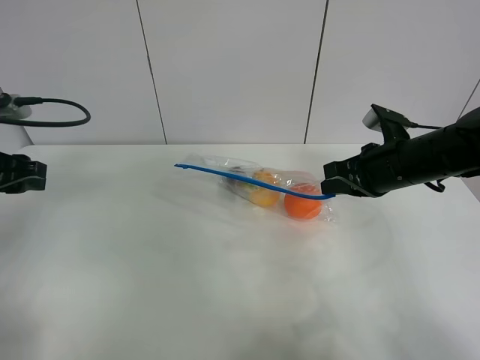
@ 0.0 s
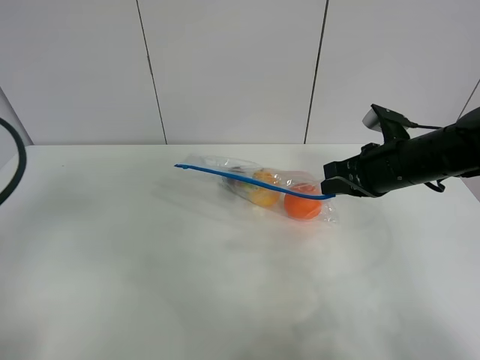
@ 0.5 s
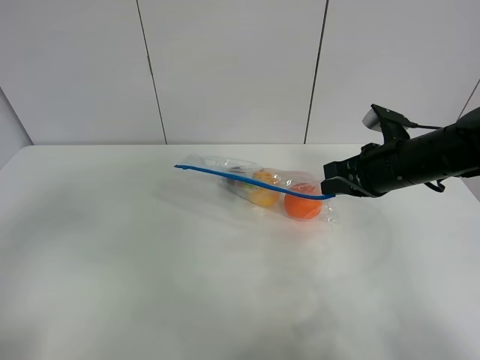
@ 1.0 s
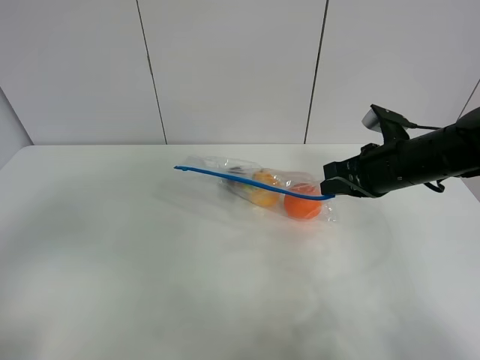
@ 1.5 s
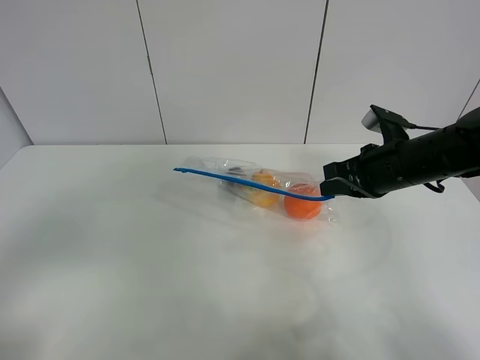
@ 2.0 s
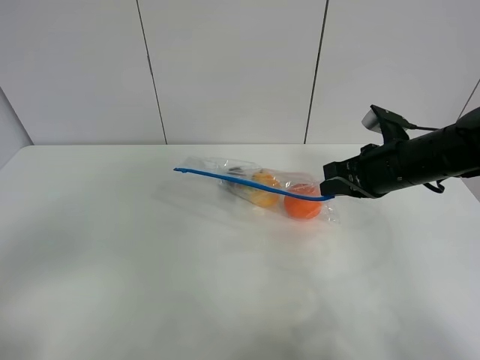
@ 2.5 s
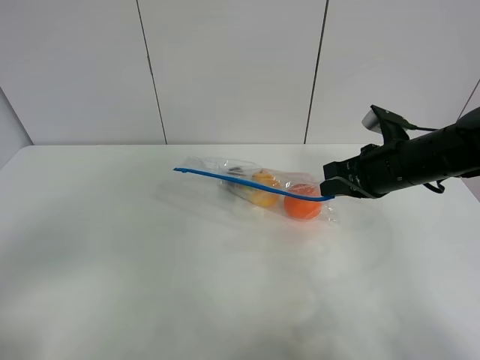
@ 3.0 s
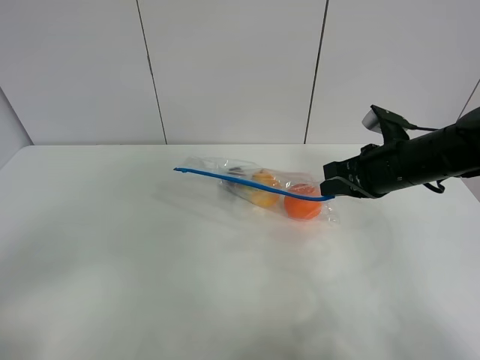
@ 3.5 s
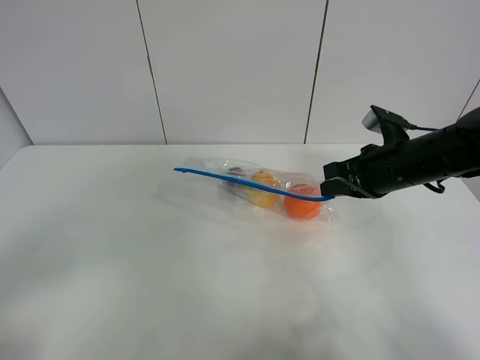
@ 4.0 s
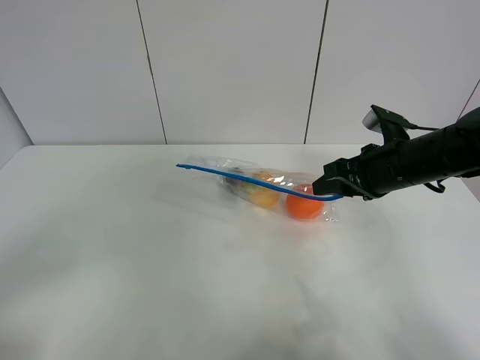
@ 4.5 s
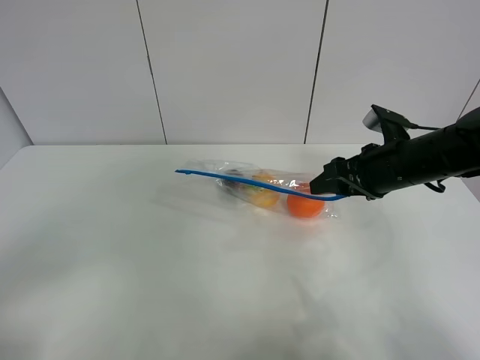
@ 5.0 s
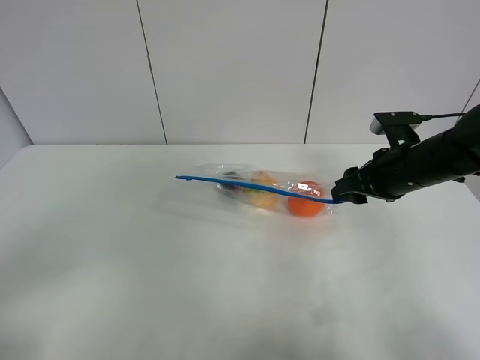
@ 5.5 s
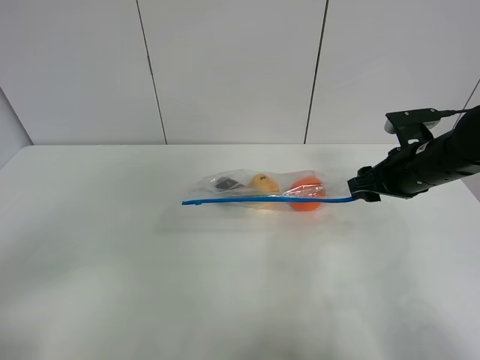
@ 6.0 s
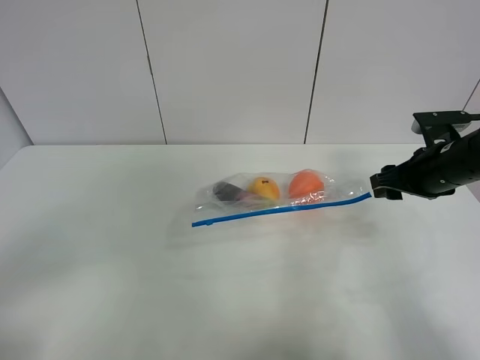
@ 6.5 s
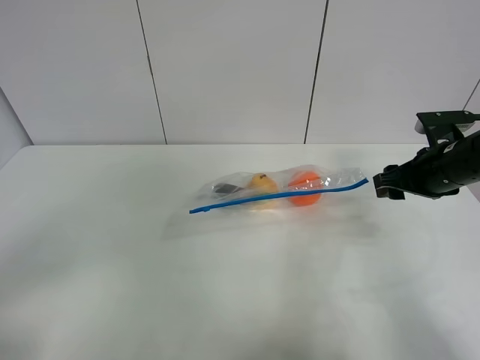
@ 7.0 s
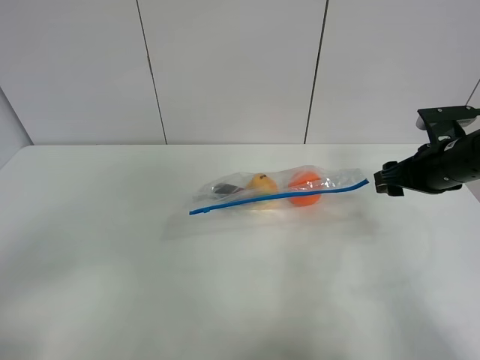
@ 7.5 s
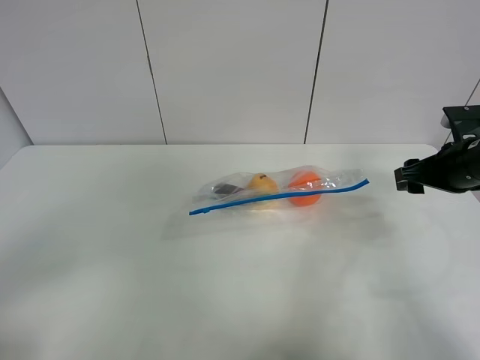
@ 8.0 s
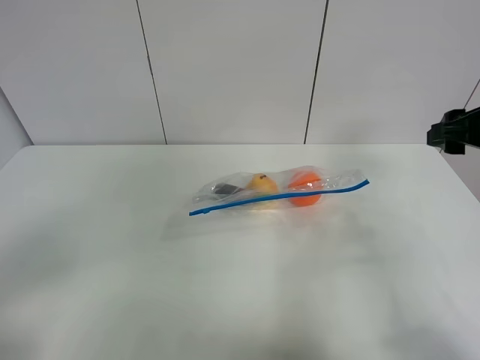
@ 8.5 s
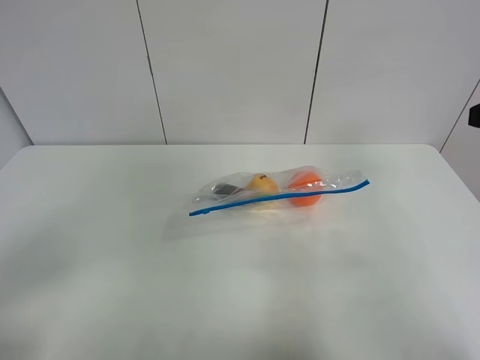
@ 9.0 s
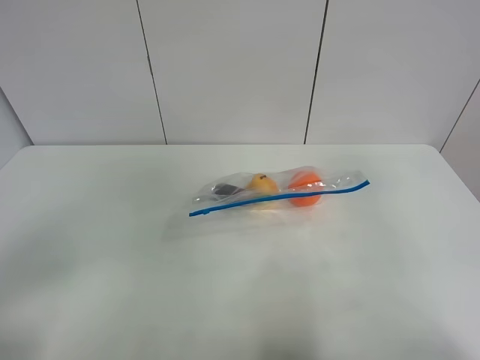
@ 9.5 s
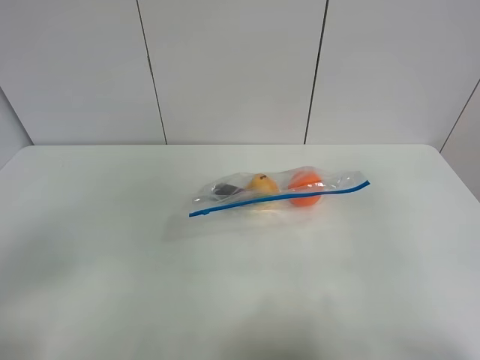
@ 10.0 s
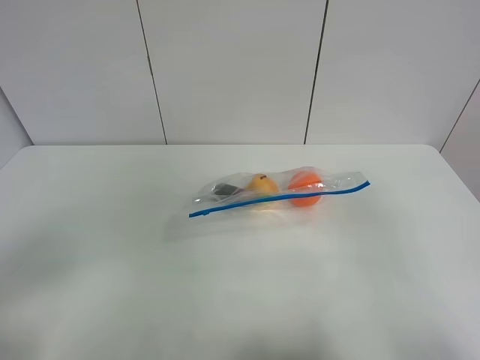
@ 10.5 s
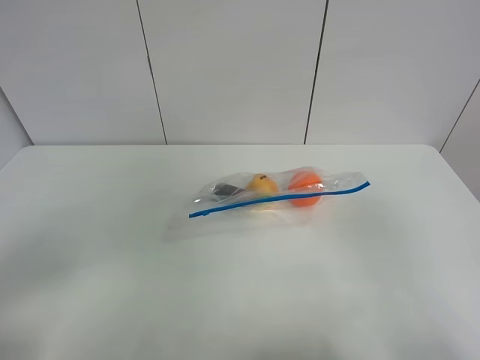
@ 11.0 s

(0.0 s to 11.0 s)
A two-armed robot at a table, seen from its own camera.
0.0 s - 2.0 s: The left gripper is displaced backward by roughly 25 cm.
3.5 s - 5.5 s: The right gripper opens up.
5.5 s - 7.5 s: The right gripper heads to the right, covering roughly 5 cm.
7.5 s - 9.0 s: The right gripper goes roughly 20 cm upward and backward.
9.0 s - 11.0 s: The right gripper travels backward by roughly 20 cm.

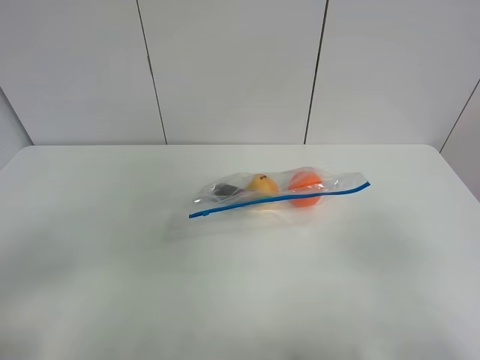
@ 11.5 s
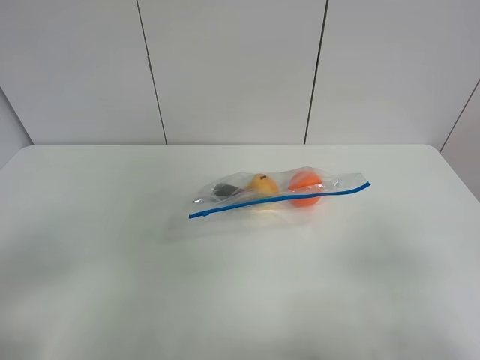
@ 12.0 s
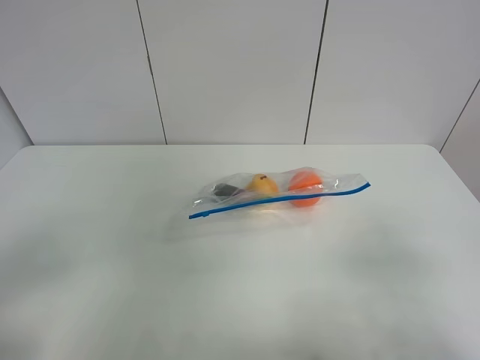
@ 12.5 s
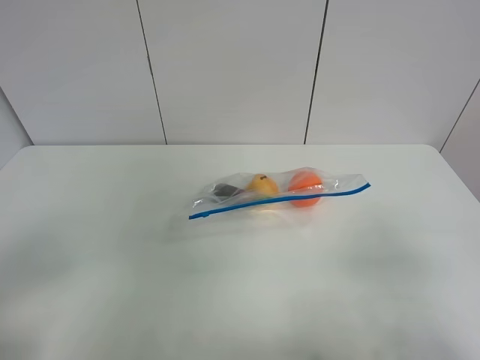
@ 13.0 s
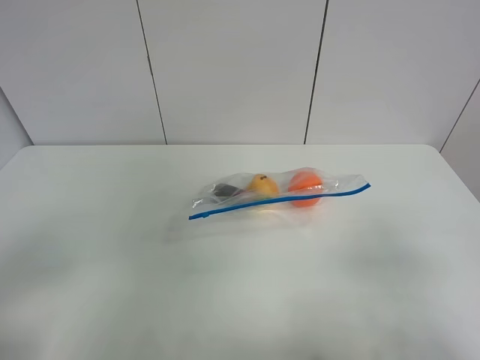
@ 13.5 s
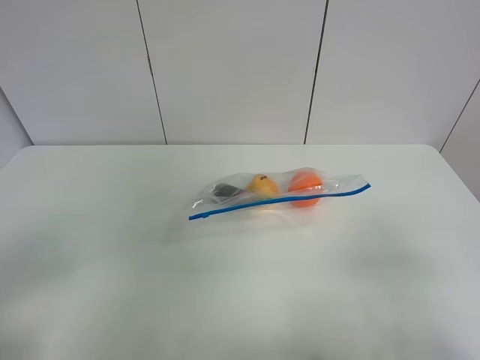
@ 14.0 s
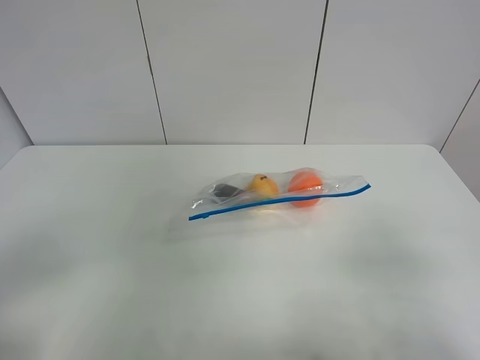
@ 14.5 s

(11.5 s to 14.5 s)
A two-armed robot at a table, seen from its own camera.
13.0 s - 14.5 s: Both grippers stay put.

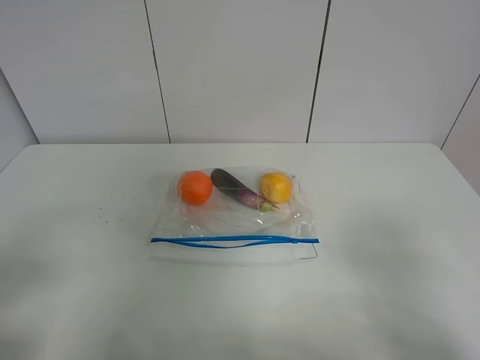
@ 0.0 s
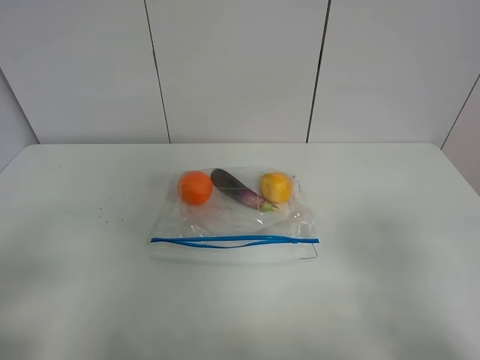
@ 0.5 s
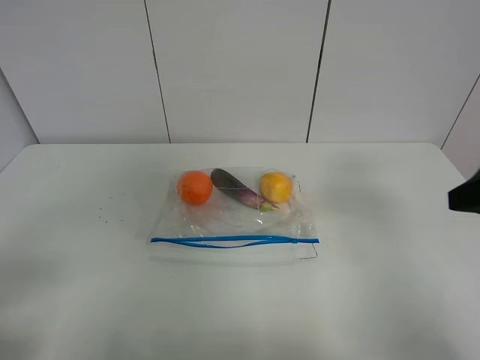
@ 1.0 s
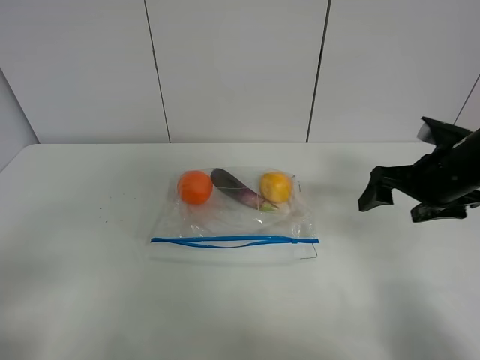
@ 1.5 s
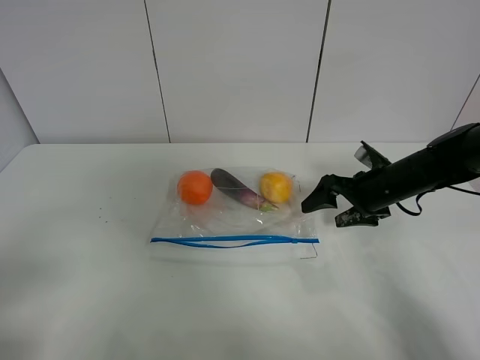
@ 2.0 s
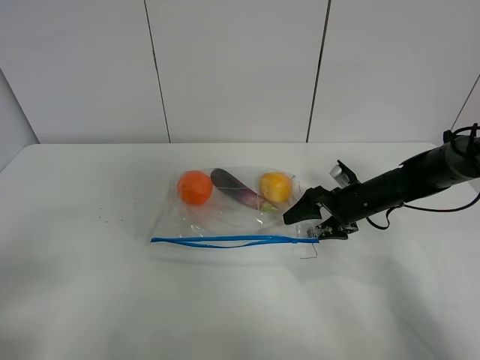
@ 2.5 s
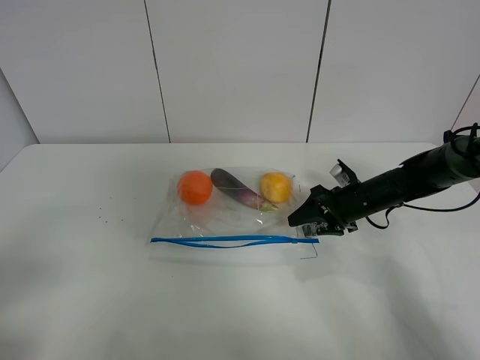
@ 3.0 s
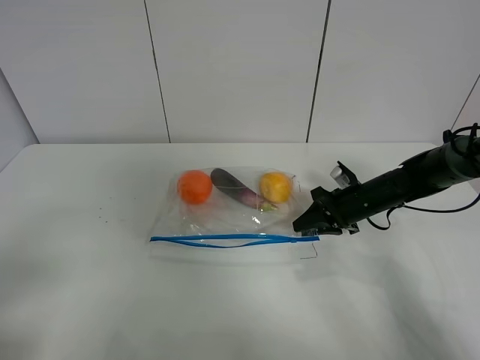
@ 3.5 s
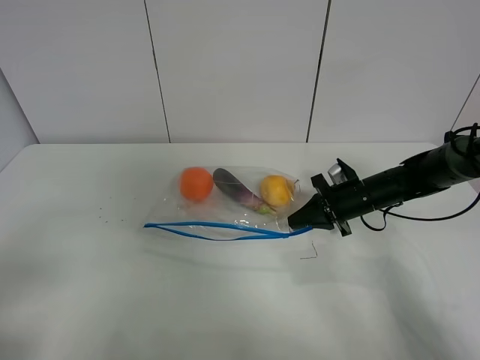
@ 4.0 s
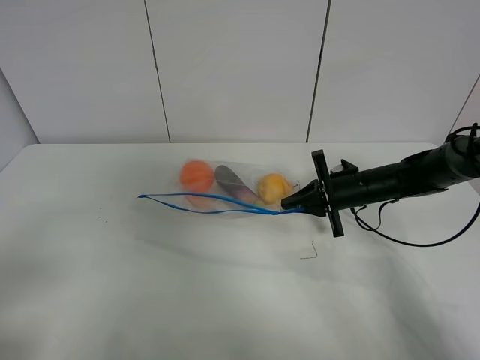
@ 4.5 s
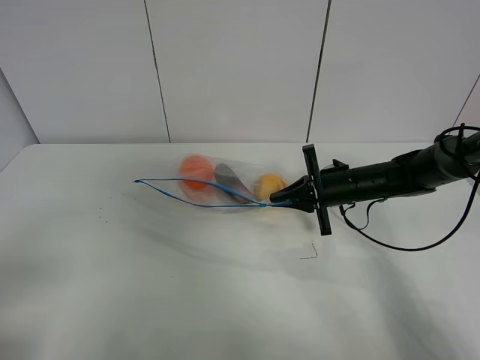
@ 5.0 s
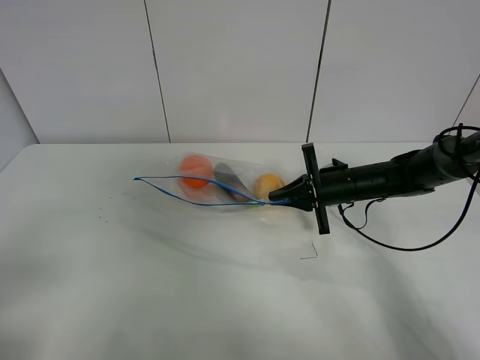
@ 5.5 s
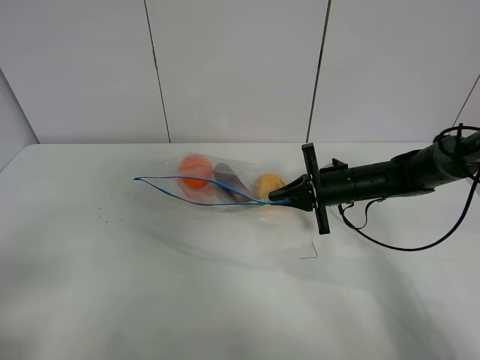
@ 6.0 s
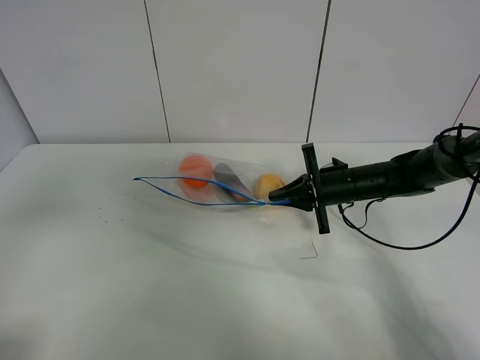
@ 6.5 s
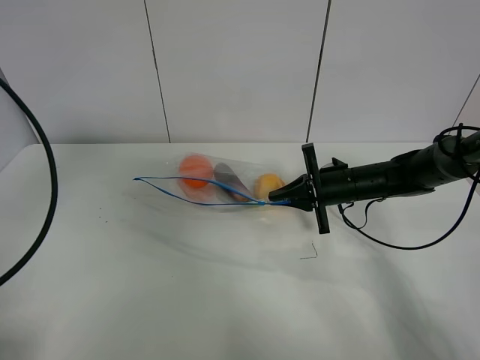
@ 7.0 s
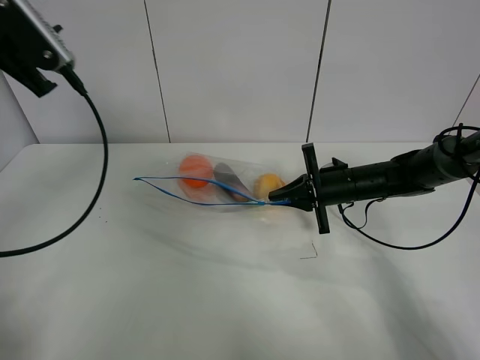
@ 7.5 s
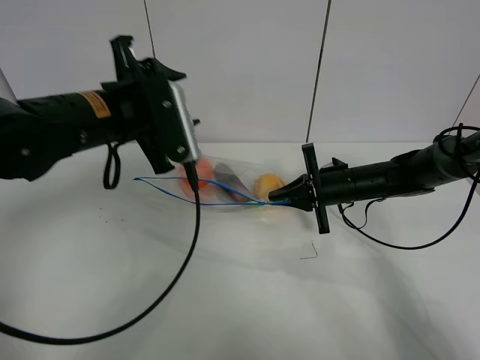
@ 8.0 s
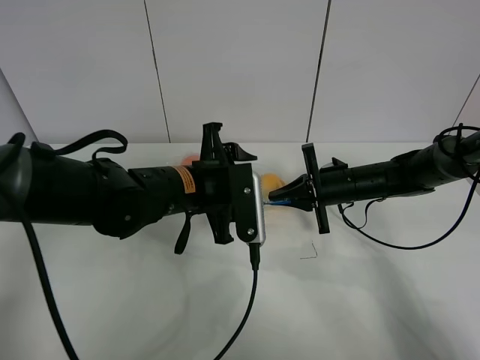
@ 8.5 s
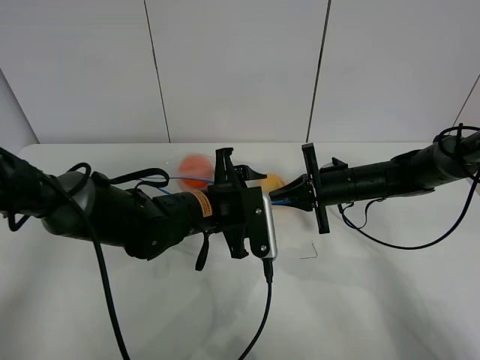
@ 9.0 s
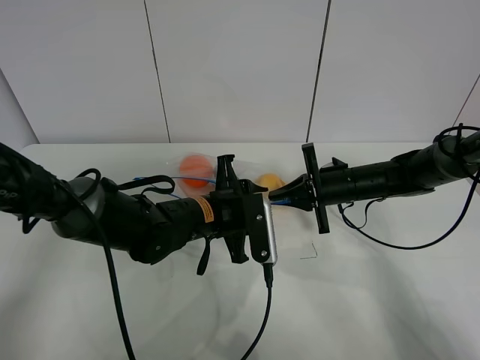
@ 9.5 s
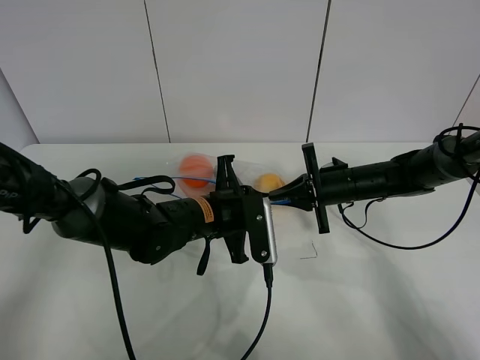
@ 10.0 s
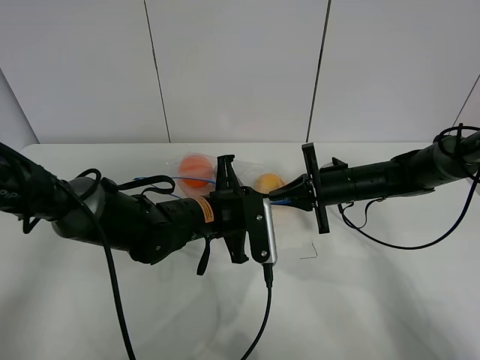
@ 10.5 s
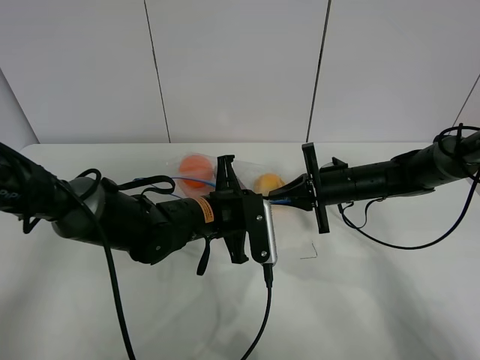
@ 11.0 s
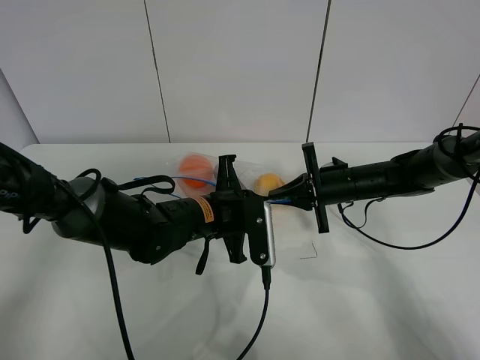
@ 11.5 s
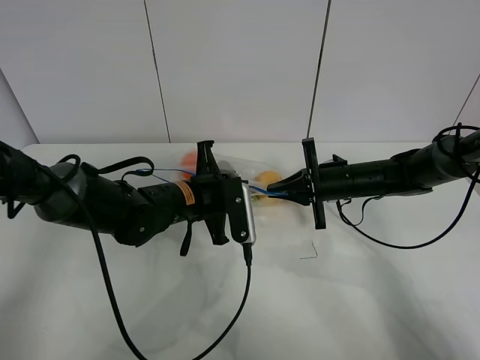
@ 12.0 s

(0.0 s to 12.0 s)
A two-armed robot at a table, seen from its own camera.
Step, 0.0 s - 3.5 s: Grasp the fruit bag with right gripper.
Step, 4.0 s - 4.5 s: Lift the fruit bag with your right gripper.
0.0 s - 2.0 s: The right gripper shifts some 35 cm forward and downward.
2.0 s - 4.0 s: The right gripper closes its fingers.
6.0 s - 8.0 s: The left gripper heads forward and to the right, covering about 35 cm.
8.0 s - 10.0 s: The left gripper travels downward and to the right by approximately 20 cm, and closes.
10.0 s - 12.0 s: The grippers make only small movements.
